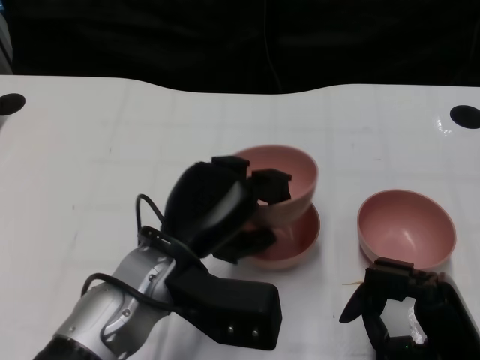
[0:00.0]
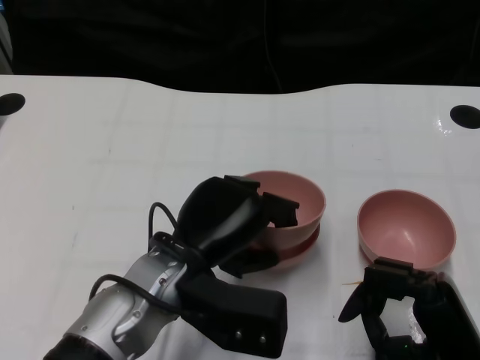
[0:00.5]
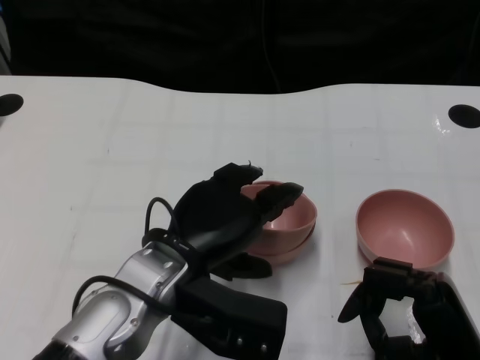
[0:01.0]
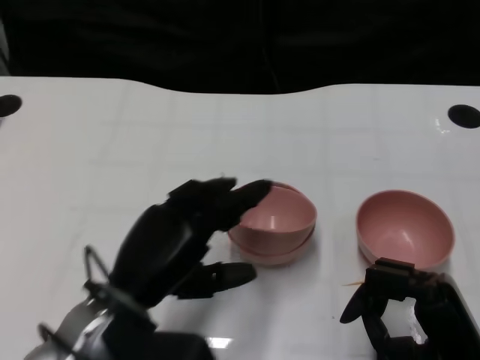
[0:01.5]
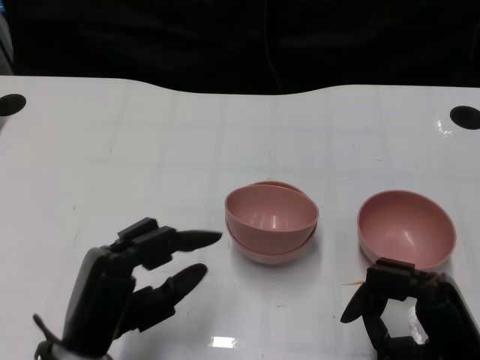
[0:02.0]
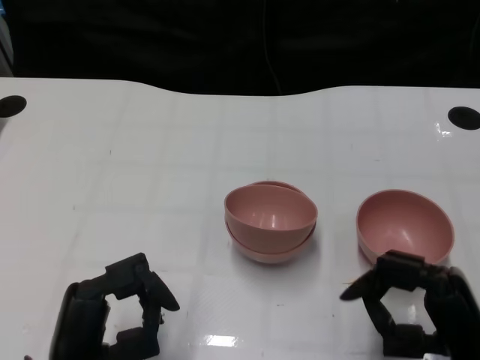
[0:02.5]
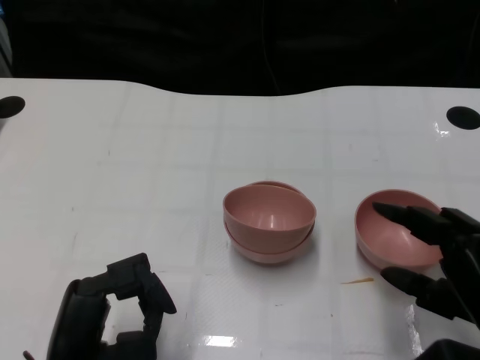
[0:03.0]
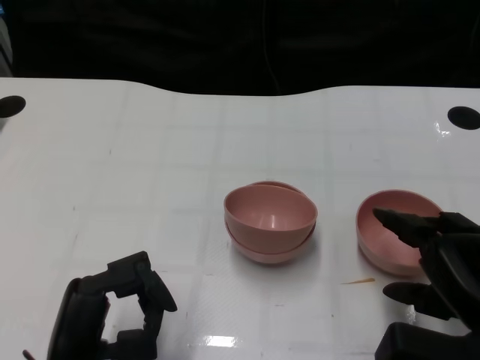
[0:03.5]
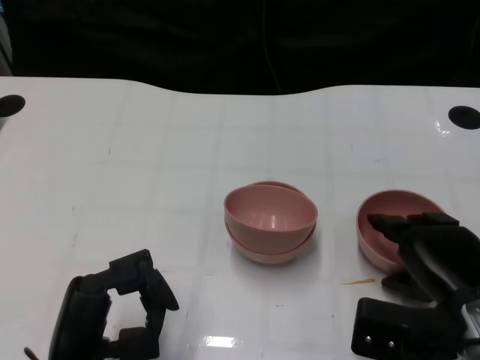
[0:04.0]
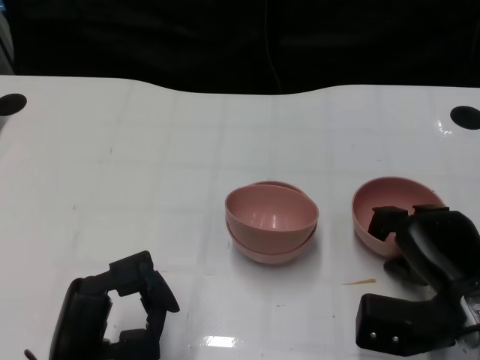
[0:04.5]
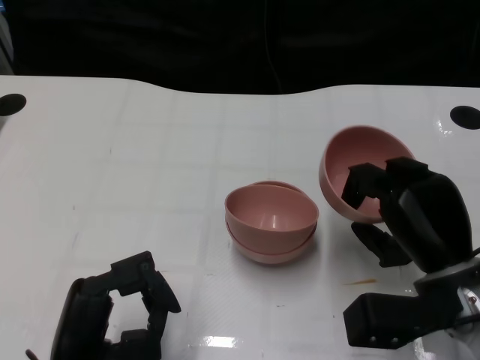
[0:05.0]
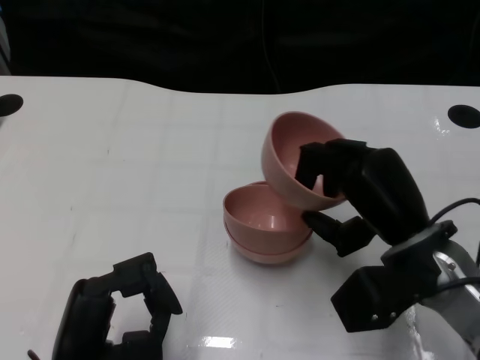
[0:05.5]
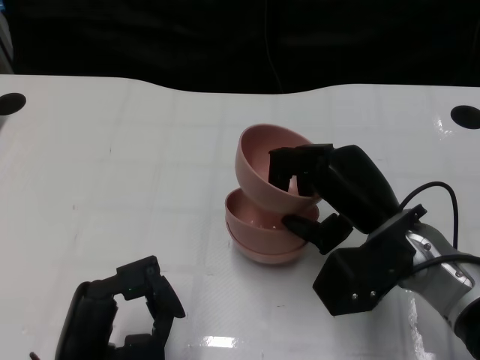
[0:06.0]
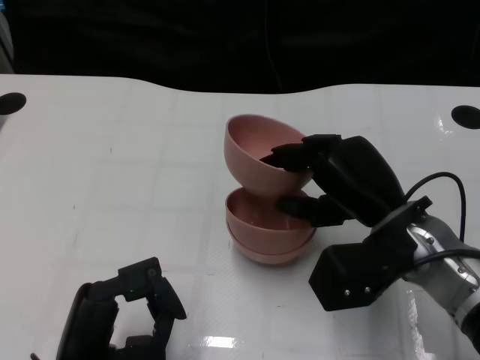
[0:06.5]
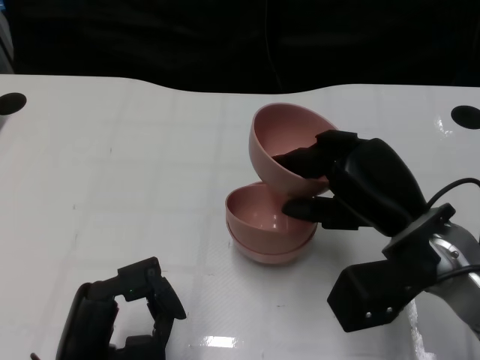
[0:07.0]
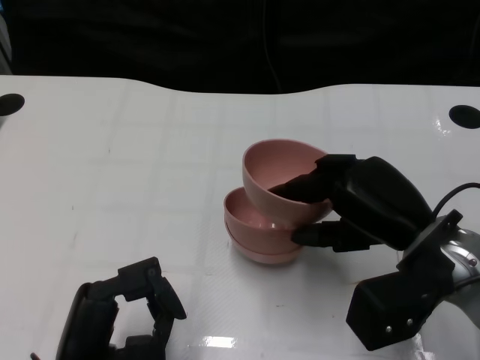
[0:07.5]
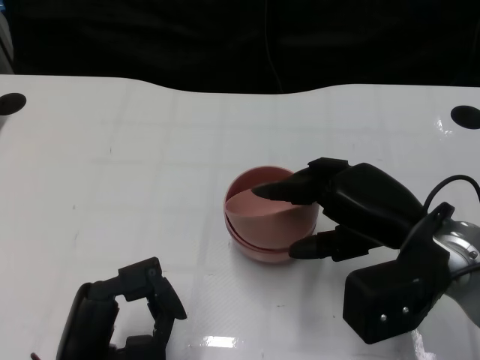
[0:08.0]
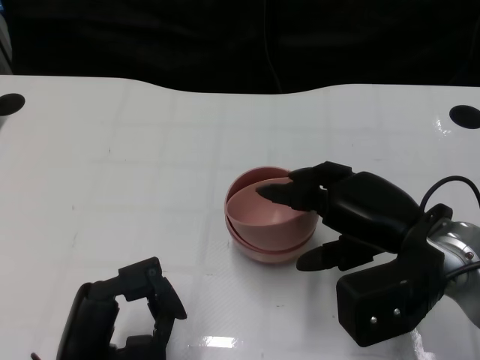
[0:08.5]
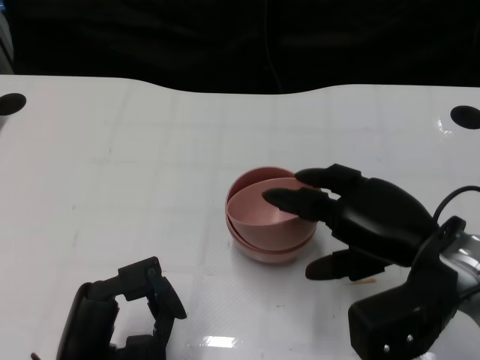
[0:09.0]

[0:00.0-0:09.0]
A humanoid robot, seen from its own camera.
Task of the whole recording: Pick up the bowl on one side of the table and place it on top of the middle bowl, then pick up the bowl on the other side of the table and place it on top of the middle bowls.
Step, 0:01.5 to 0:04.5: Grasp the bowl on the right with the right gripper.
0:00.0 to 0:02.0: The left hand moves to the left, backward and downward, roughly 10 cm.
0:02.0 to 0:04.5: The right hand shifts approximately 10 cm forward.
0:04.5 to 0:07.0: The right hand is displaced upward and to the left by about 10 cm.

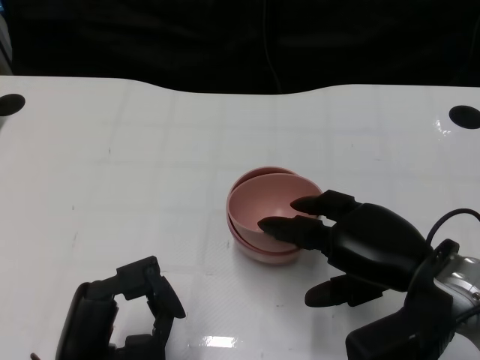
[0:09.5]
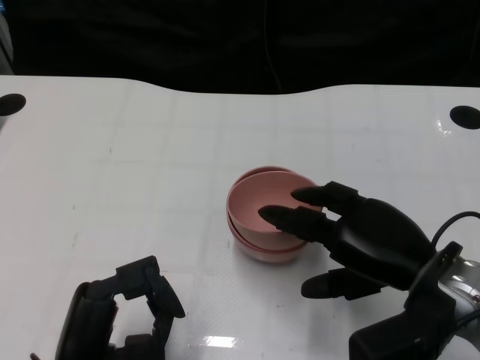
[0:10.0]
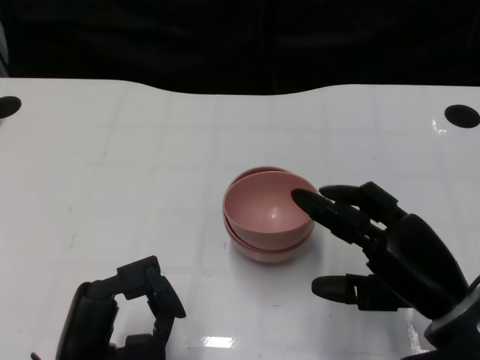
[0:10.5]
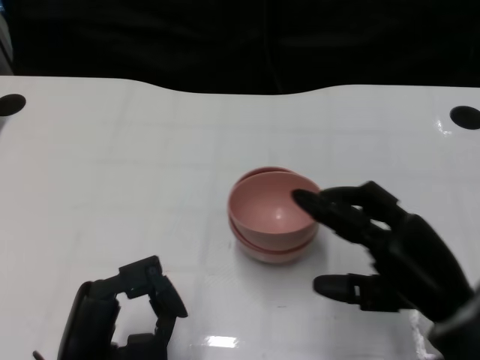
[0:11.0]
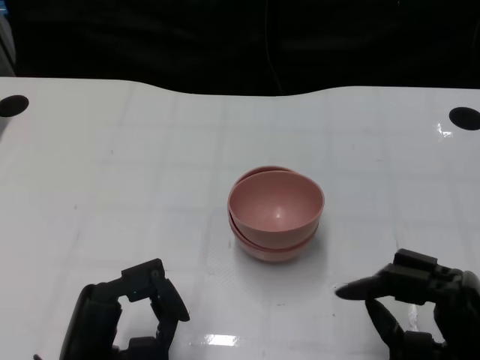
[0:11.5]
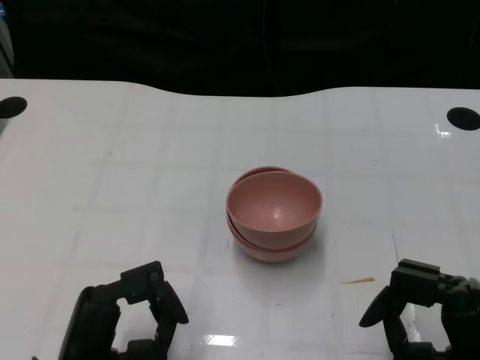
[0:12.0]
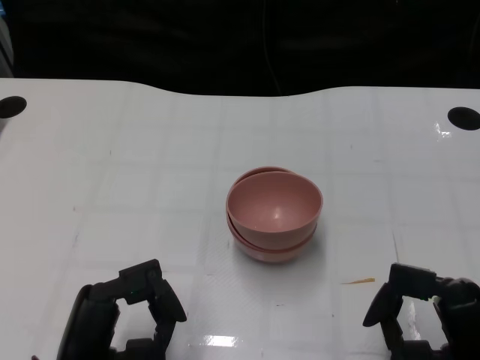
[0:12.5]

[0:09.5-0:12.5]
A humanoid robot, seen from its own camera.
Task of the whole recording: Pick up the bowl on one side of the table and place it on top of the middle bowl, then pick up the bowl on the other side of the table and place it on top of the middle bowls.
0:11.0 to 0:12.5: The right hand travels backward by some 5 cm.

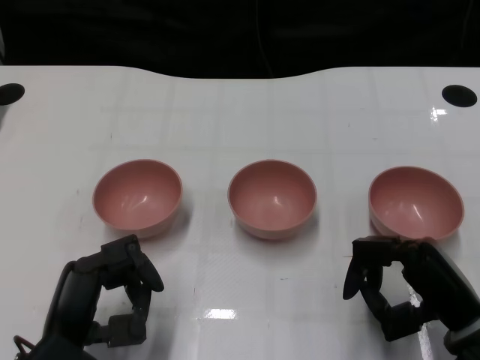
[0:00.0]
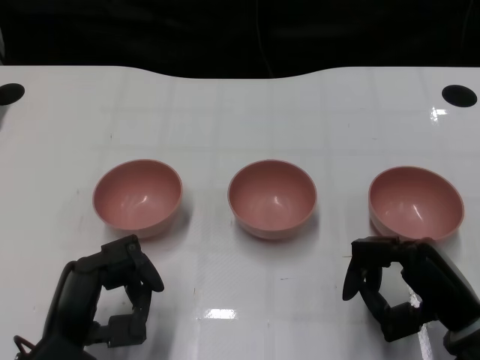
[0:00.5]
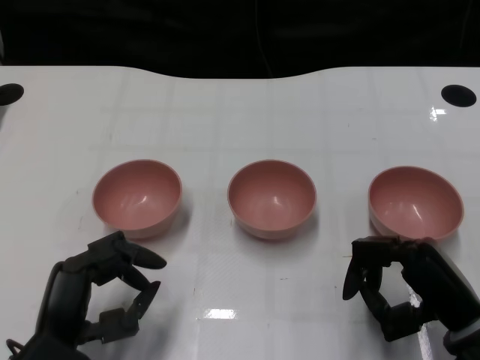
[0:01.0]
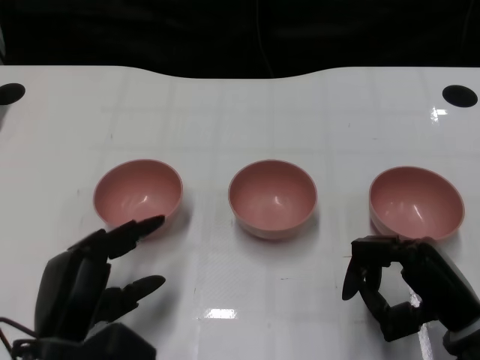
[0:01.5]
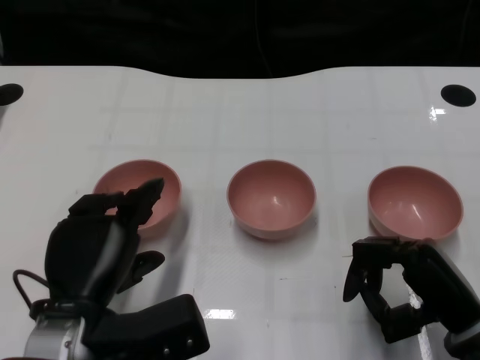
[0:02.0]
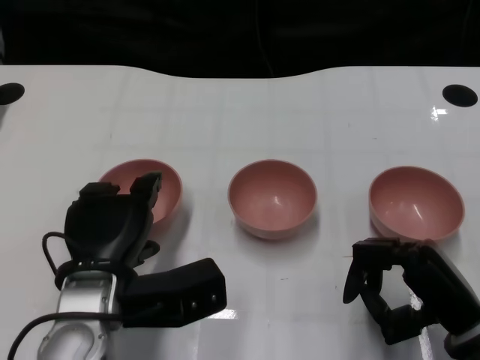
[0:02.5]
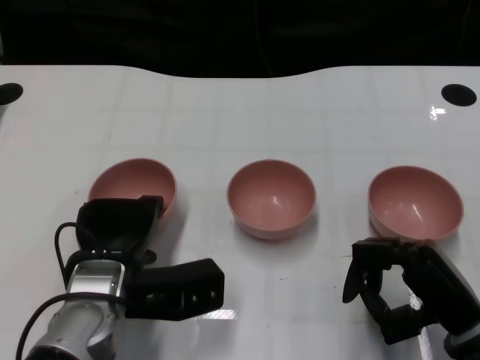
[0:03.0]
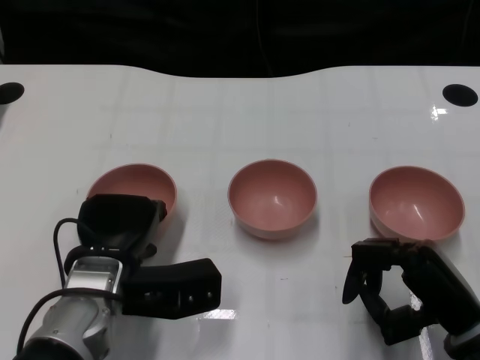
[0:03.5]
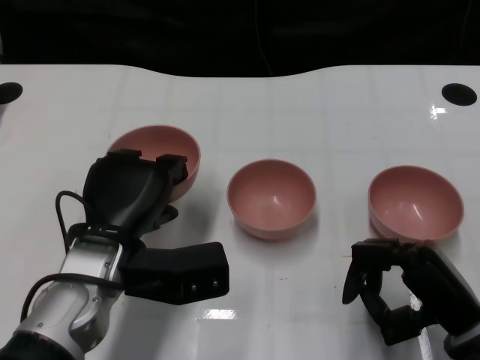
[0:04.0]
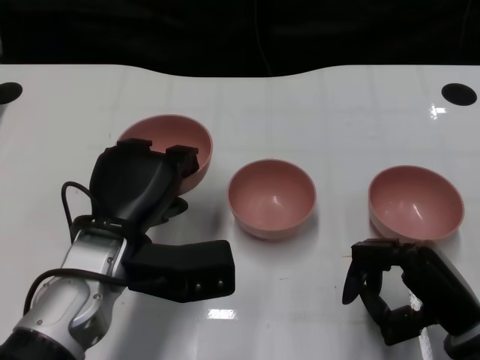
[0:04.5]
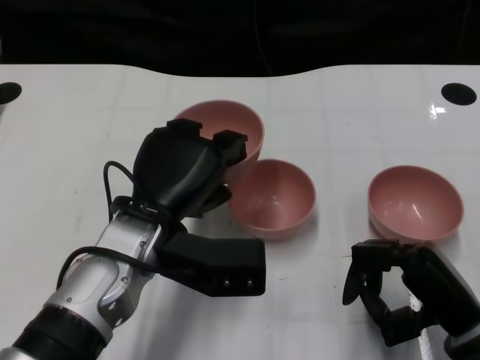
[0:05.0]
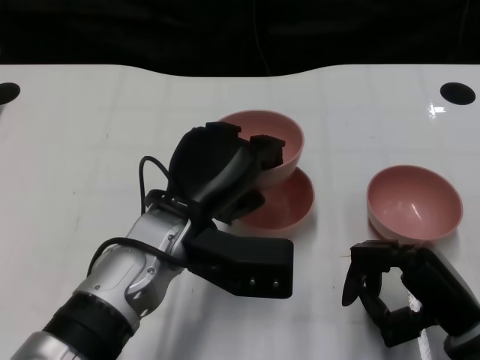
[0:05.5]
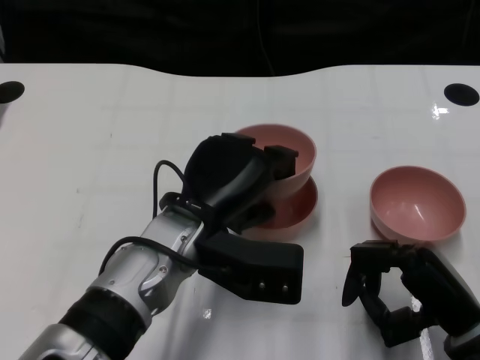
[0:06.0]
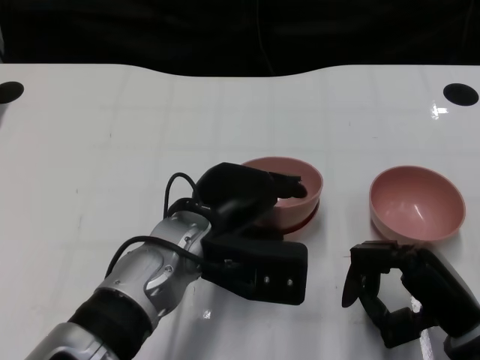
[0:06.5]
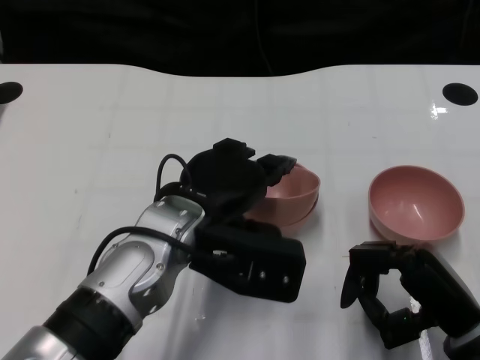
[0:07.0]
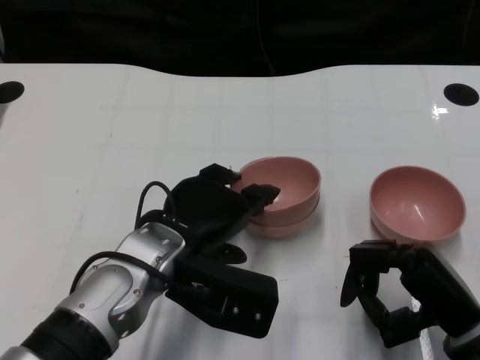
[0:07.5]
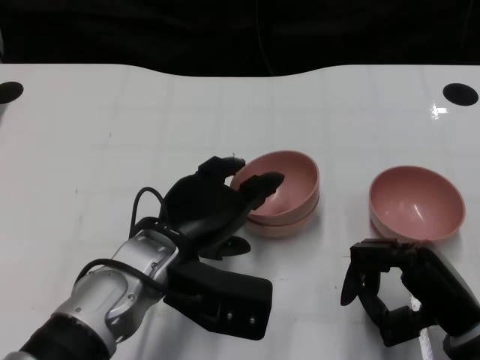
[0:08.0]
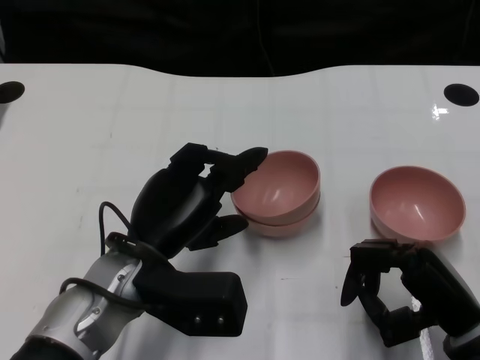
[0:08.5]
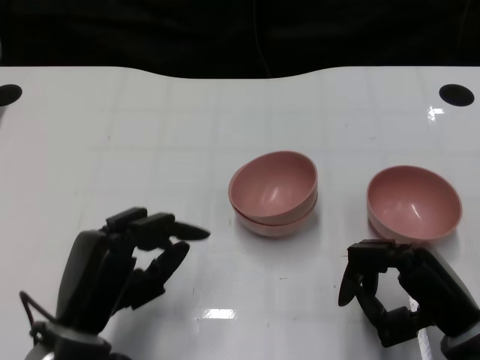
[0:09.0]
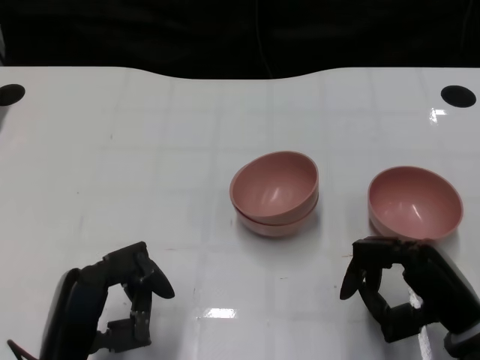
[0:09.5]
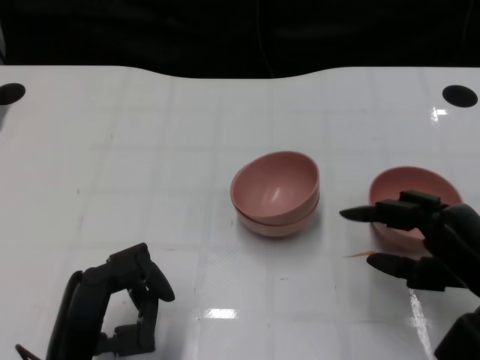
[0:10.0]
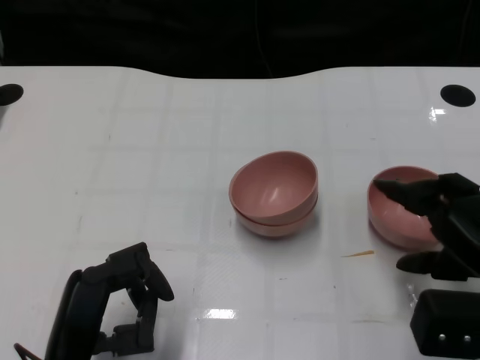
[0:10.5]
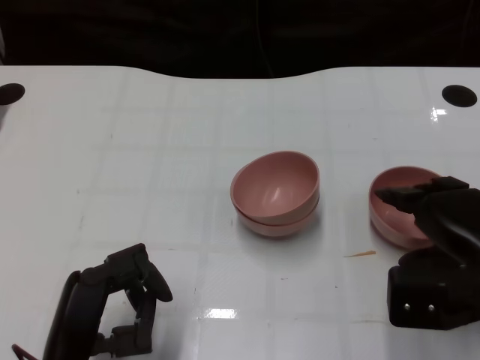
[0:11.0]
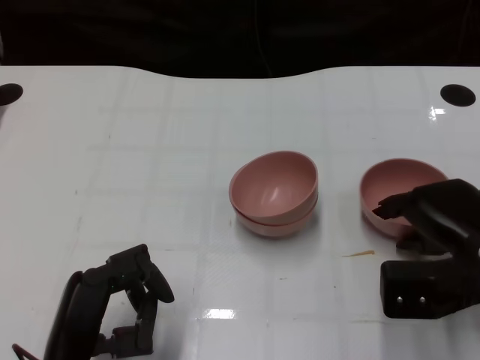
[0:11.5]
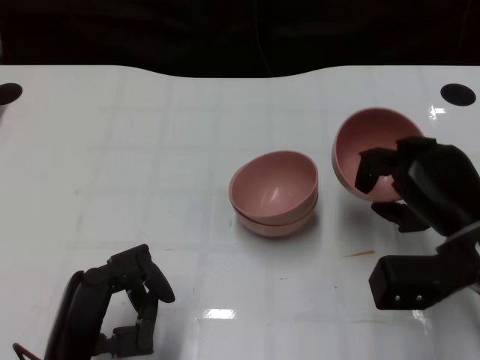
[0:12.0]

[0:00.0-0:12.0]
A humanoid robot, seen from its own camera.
Task of the whole recording: Pick up the bowl on one side of the table and place it on top of the middle bowl, then pick up the bowl on the other side of the table and place it on top of the middle bowls.
Step, 0:01.0 to 0:03.5: Grasp the bowl on the left with the left gripper.
Step, 0:04.0 to 0:08.0: Place the bowl on the left onto the bowl in the middle with left gripper.
Step, 0:08.5 to 0:11.5: Grasp the bowl on the right with the right gripper.
0:02.0 to 0:04.0: The left hand heads forward, covering approximately 5 cm.
0:04.0 to 0:06.0: The left hand shifts some 10 cm to the right.
0:08.0 to 0:10.0: The left hand shifts about 15 cm backward, to the left and downward.
0:10.0 to 0:12.0: The right hand shifts roughly 5 cm forward.

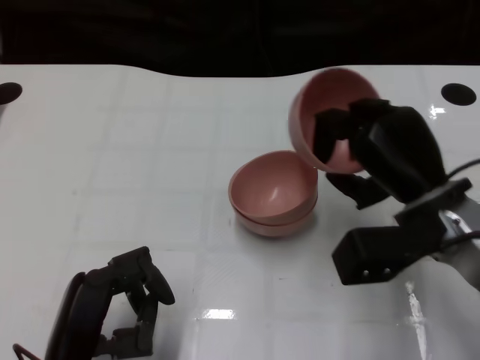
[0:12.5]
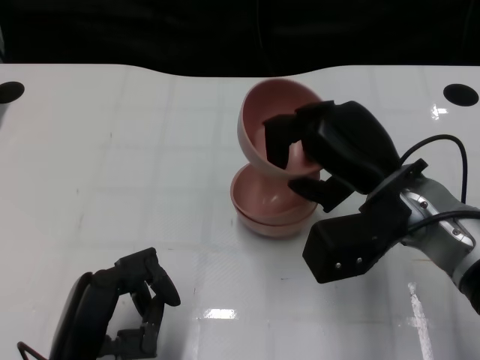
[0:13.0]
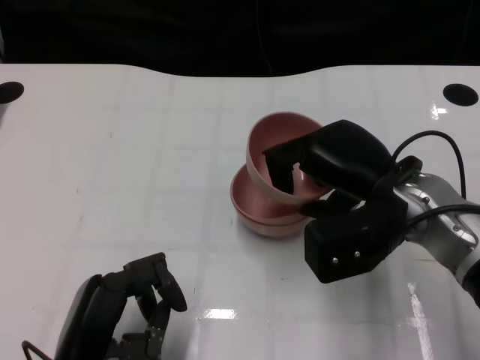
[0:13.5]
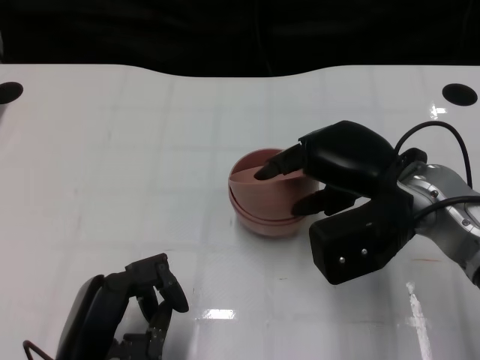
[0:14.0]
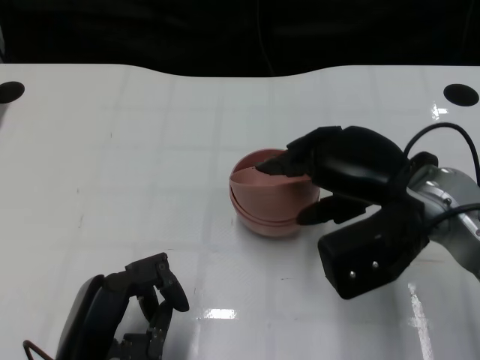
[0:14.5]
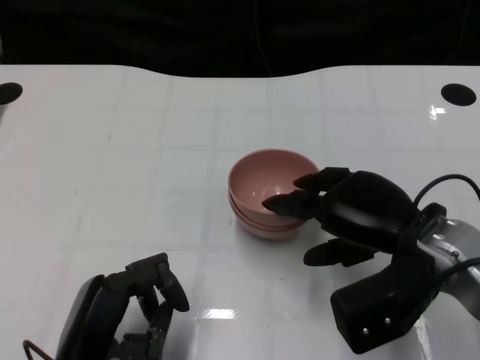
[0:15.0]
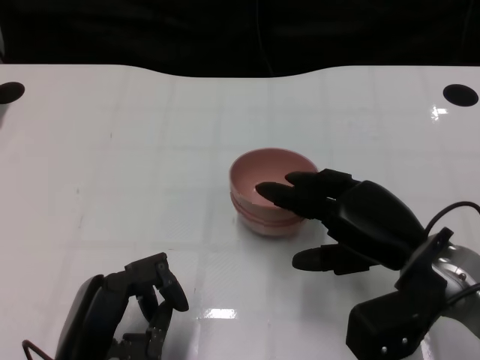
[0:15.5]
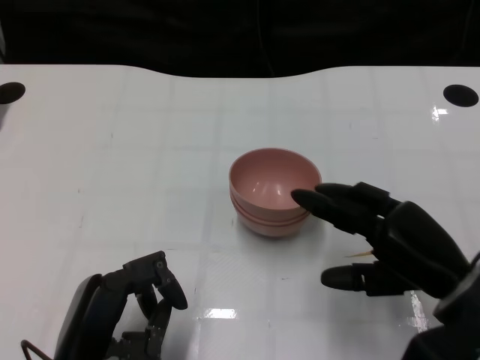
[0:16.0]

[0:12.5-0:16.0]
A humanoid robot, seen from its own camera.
Task of the whole recording: Pick up the bowl on one side of the table and place it on top of the middle bowl, then pick up the bowl on the other side of the table and place it on top of the middle bowls.
Step, 0:12.5 to 0:15.5: Place the bowl on the right onto the bowl in the middle with right gripper.
0:14.5 to 0:16.0: The right hand goes some 10 cm downward, backward and to the right.
